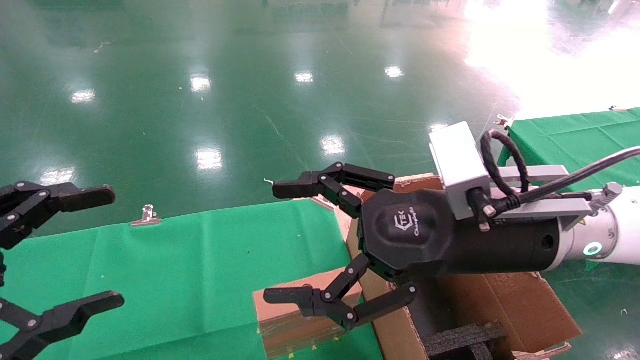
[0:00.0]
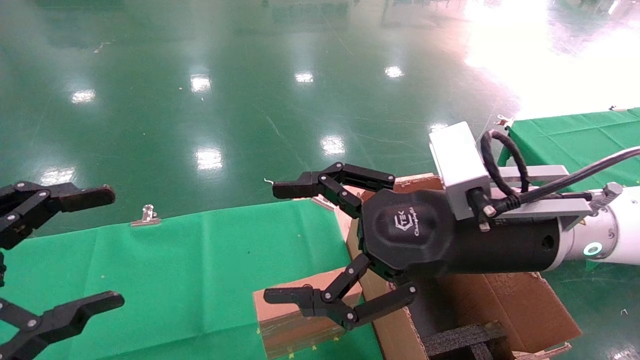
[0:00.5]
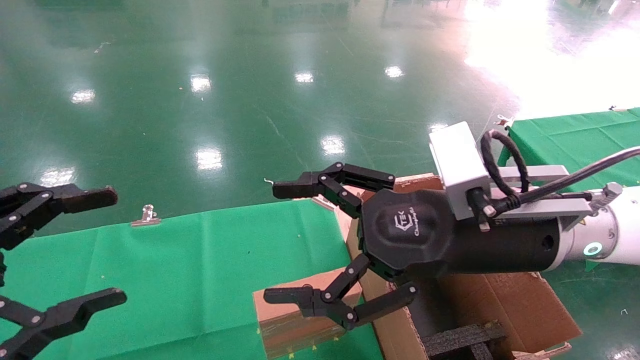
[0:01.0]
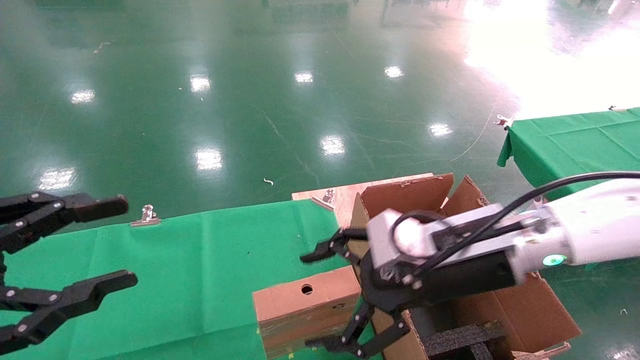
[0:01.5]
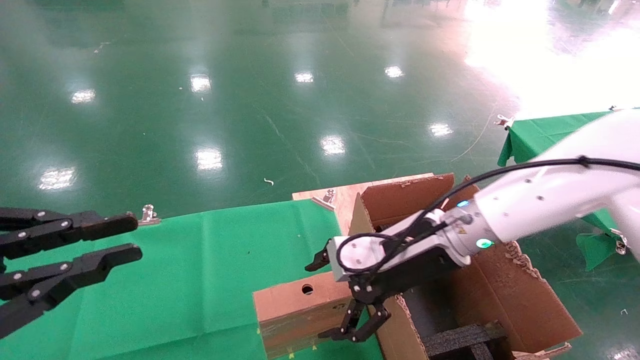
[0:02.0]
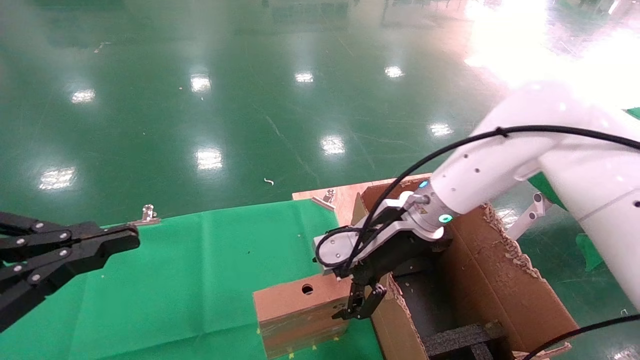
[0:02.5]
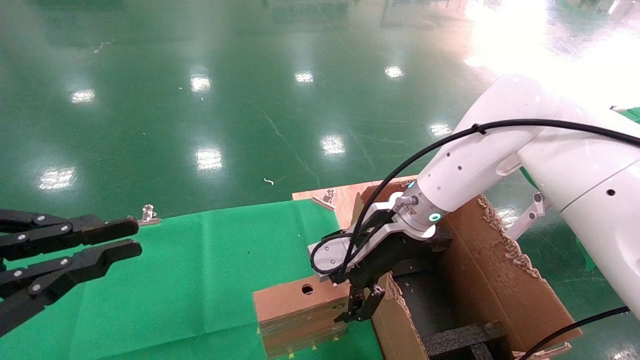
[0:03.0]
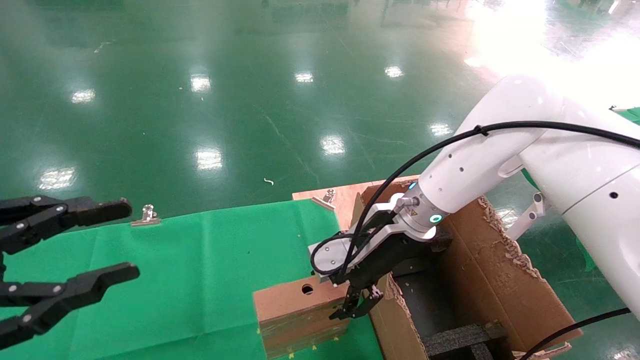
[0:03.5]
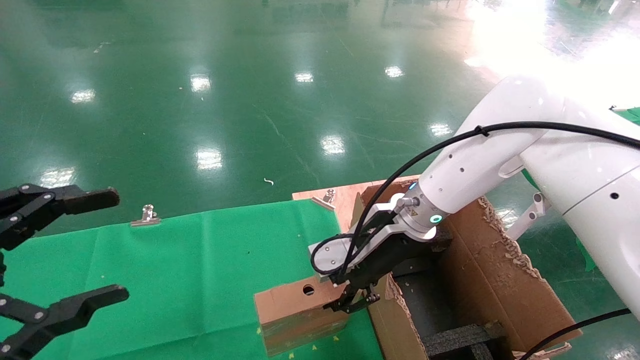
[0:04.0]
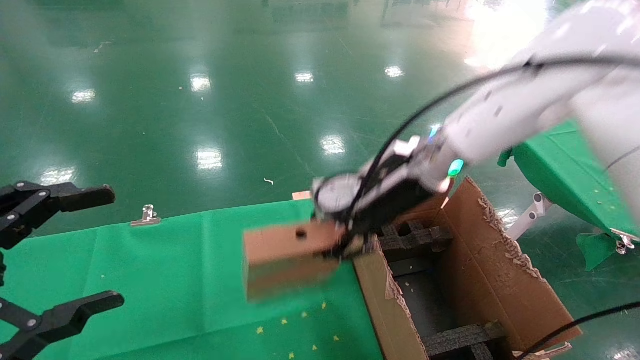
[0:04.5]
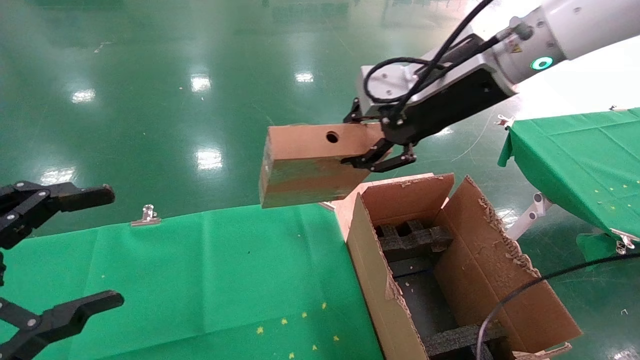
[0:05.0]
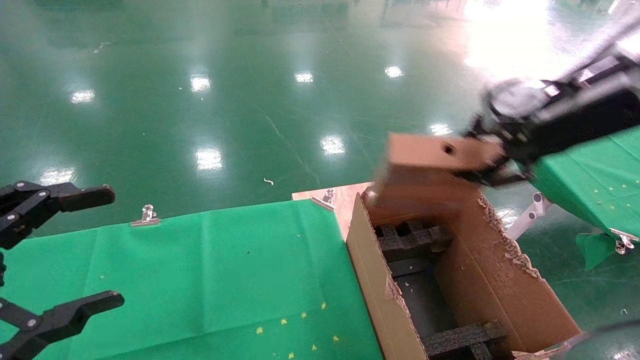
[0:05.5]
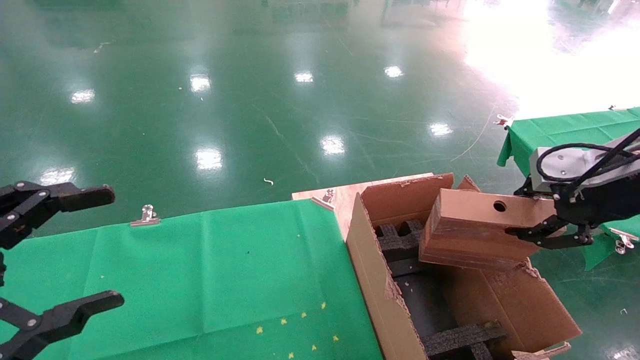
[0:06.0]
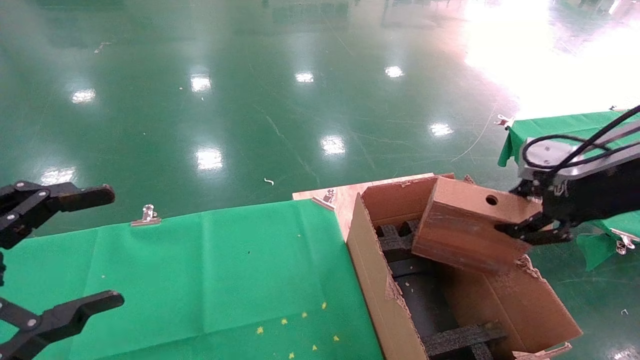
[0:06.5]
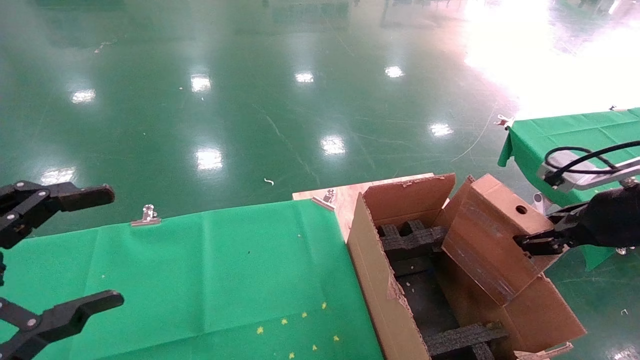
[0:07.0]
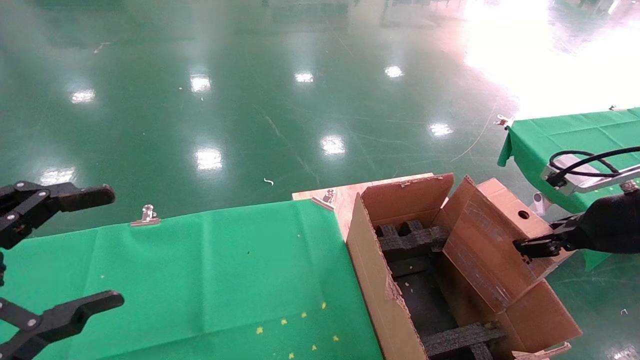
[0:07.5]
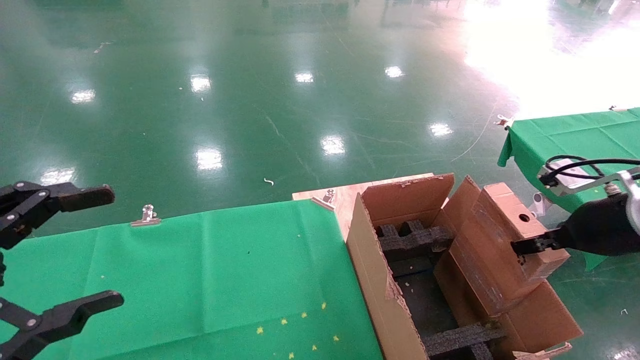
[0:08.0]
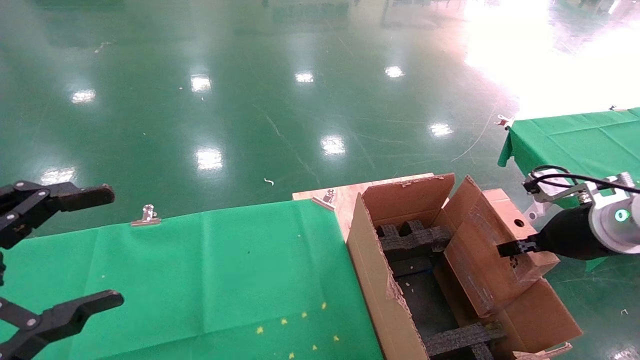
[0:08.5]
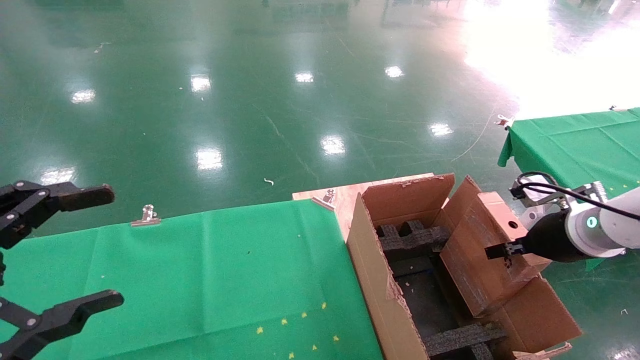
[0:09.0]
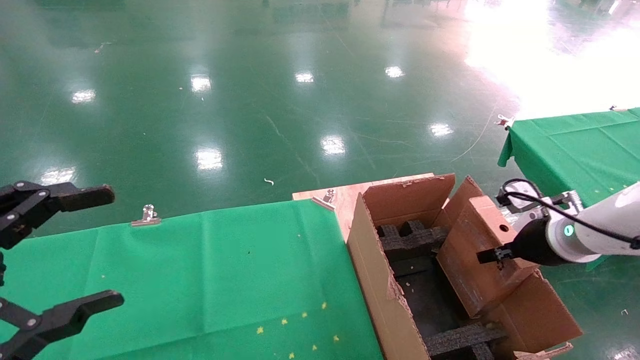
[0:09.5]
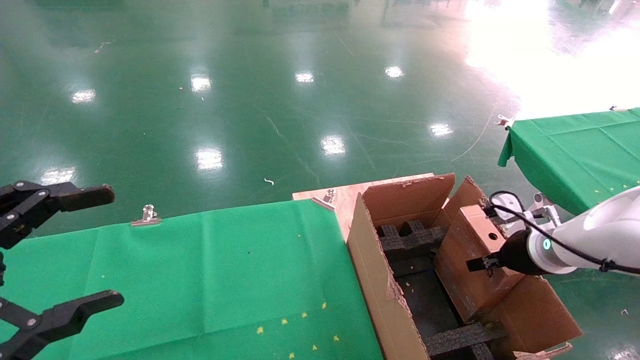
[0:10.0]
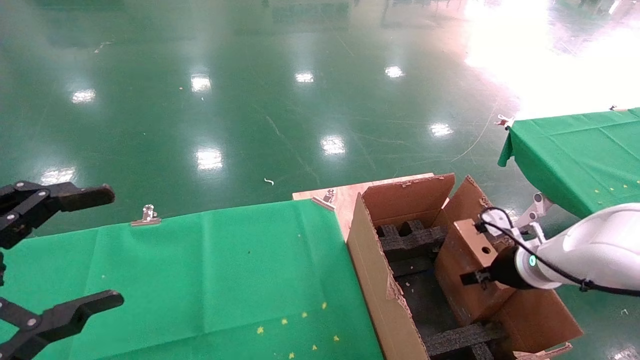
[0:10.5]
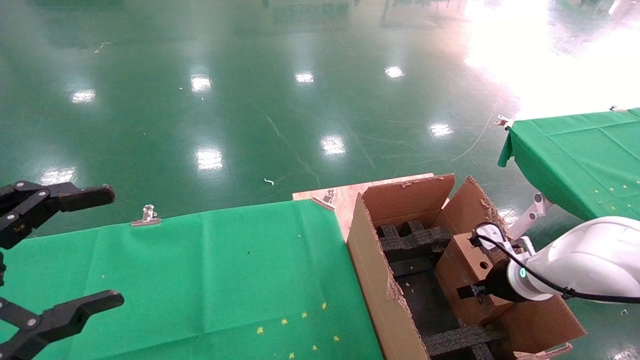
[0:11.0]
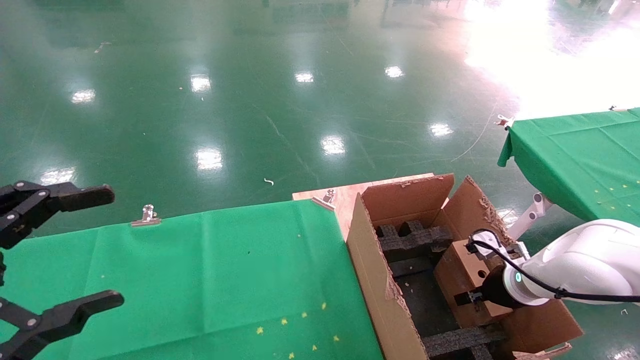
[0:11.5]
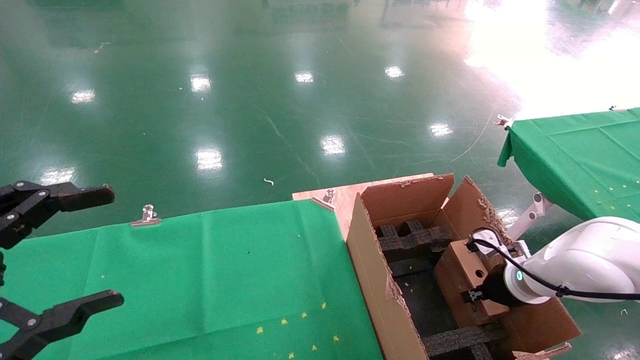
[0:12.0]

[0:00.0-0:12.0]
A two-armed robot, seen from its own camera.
Task of the whole recording: using a robotic arm to pick up a cardboard box and palace it the carton.
Step, 0:01.5 to 0:04.0: Pick up the mouse and the power cord paper box.
0:00.0 to 0:02.0: The left gripper closes up; the right gripper is displaced forward and downward by approximately 10 cm.
0:02.0 to 0:04.0: The left gripper opens its fingers, while the right gripper ends up some 5 cm from where it was, and closes up.
0:04.0 to 0:06.0: The right gripper is displaced to the right, backward and upward by approximately 30 cm.
0:06.0 to 0:08.0: The right gripper goes approximately 10 cm downward.
0:08.0 to 0:10.0: The right gripper heads downward and forward, covering about 10 cm.
0:10.0 to 0:12.0: The right gripper moves downward, some 5 cm.

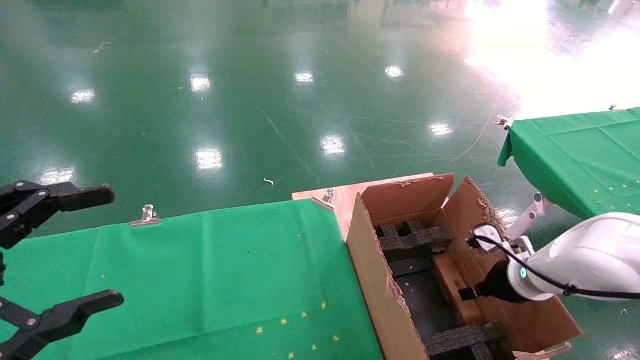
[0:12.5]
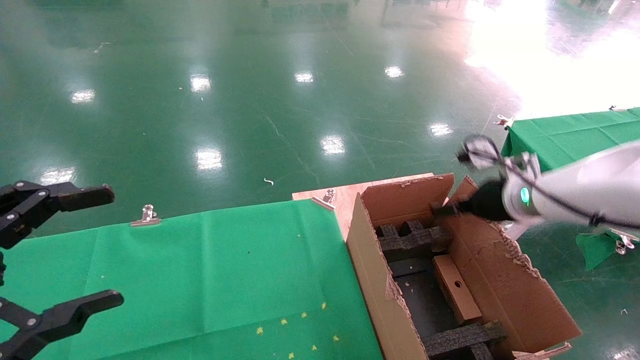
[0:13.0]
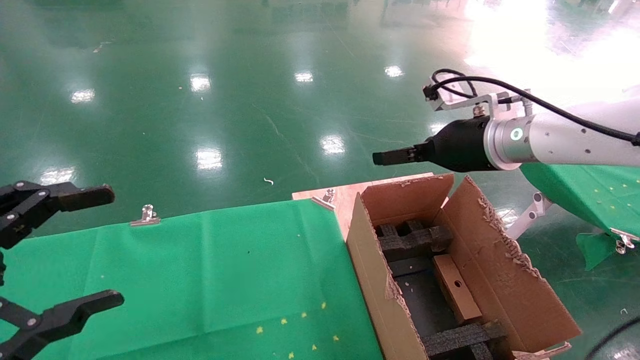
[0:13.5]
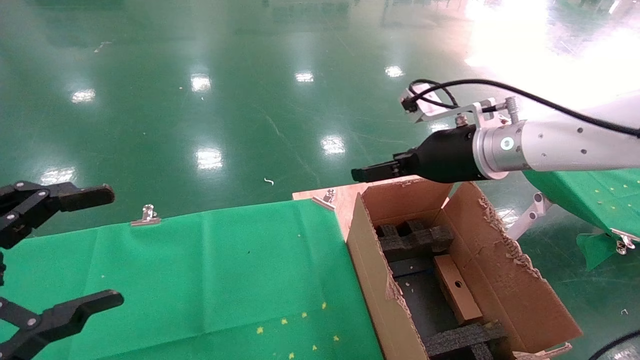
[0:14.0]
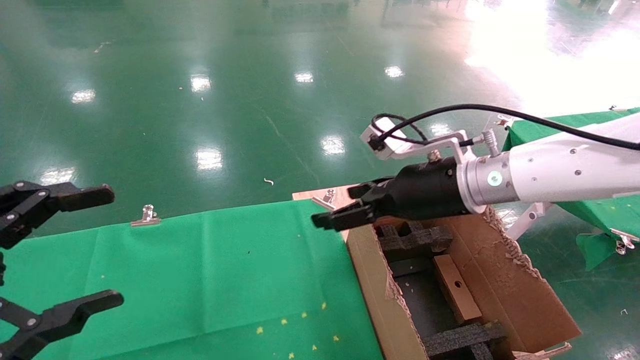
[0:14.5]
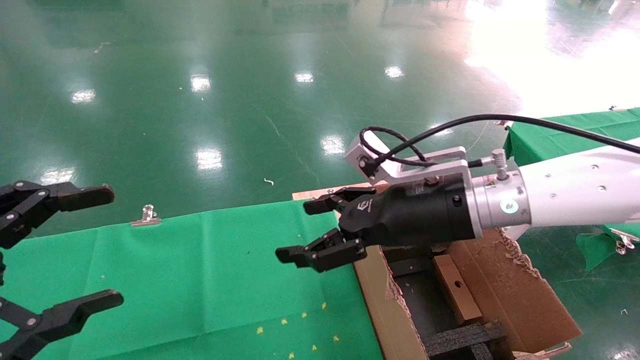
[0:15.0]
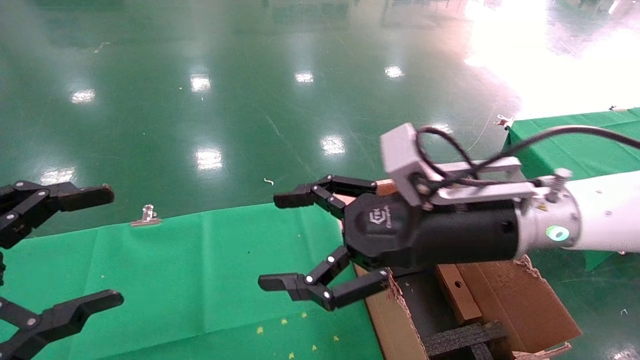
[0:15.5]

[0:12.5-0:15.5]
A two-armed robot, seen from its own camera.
Task of the whole recording: using a robotic arm to pick up a cardboard box and palace it the carton.
0:12.5 to 0:14.0: The right gripper is displaced upward and to the left by approximately 25 cm, and opens.
0:14.0 to 0:15.5: The right gripper travels backward and to the left by some 10 cm.
